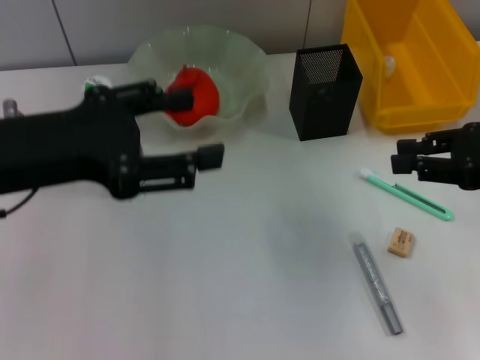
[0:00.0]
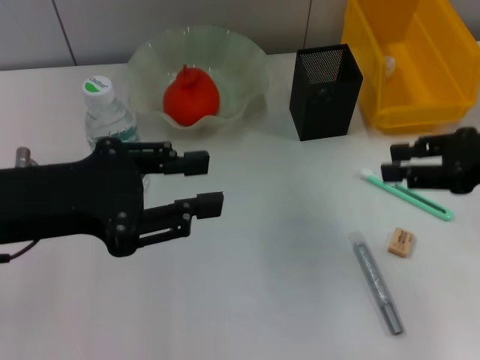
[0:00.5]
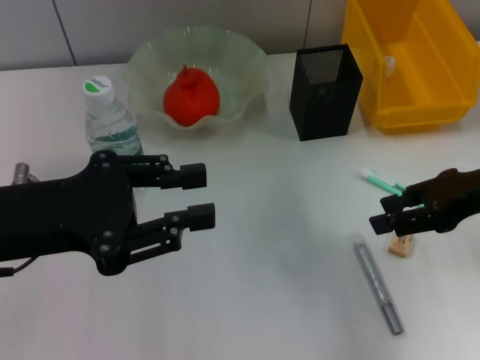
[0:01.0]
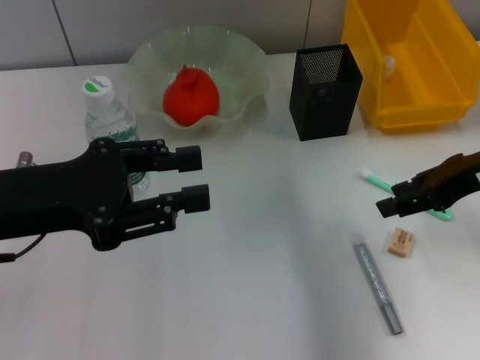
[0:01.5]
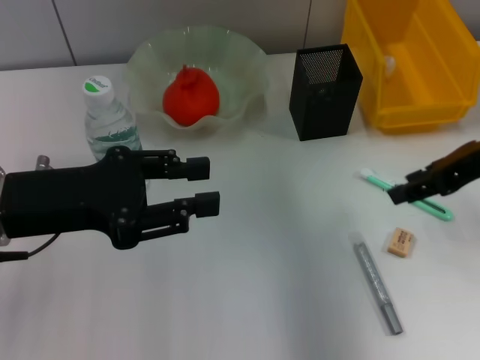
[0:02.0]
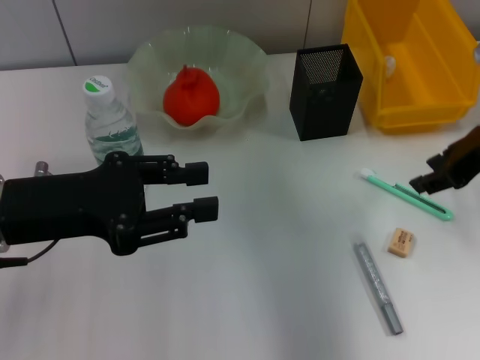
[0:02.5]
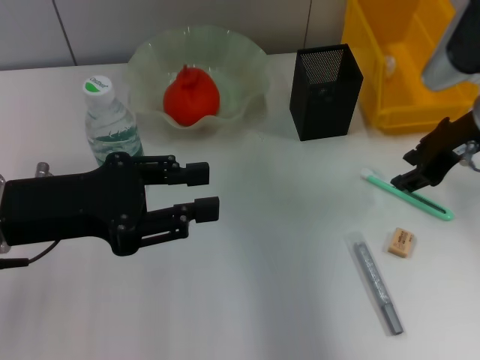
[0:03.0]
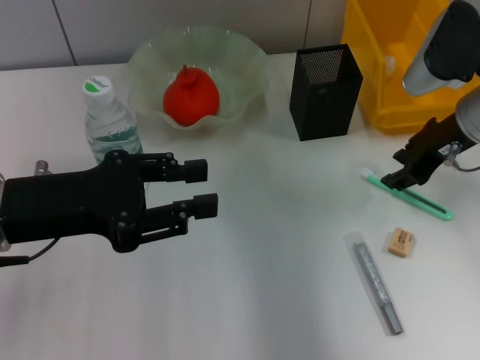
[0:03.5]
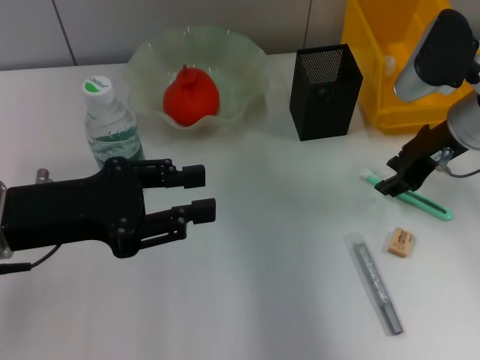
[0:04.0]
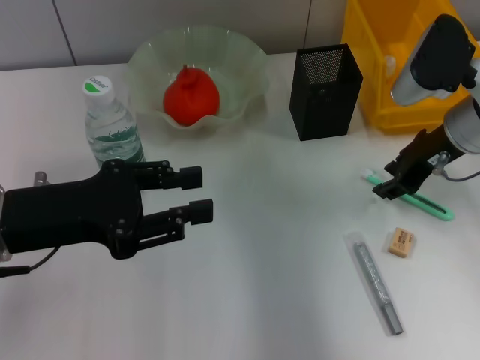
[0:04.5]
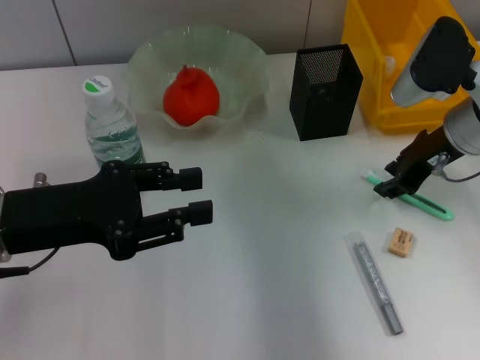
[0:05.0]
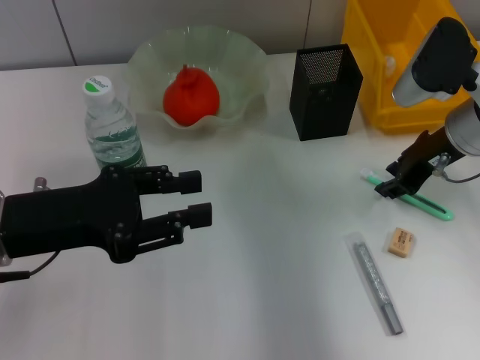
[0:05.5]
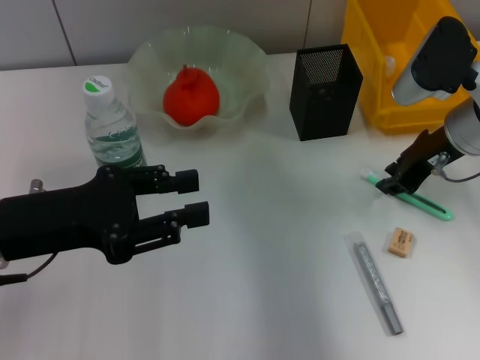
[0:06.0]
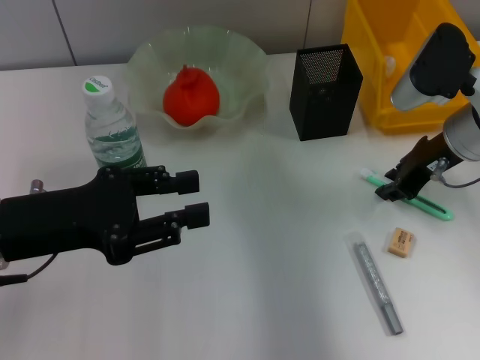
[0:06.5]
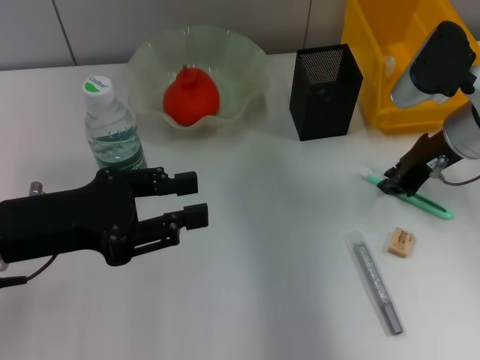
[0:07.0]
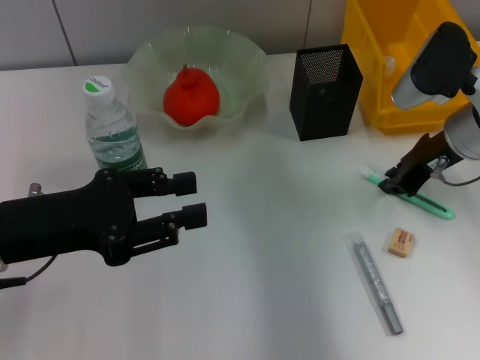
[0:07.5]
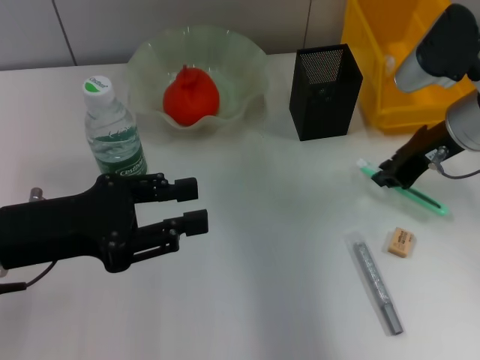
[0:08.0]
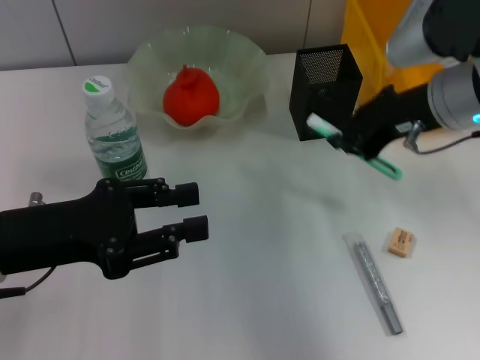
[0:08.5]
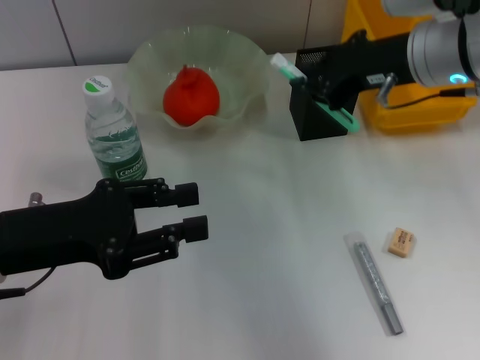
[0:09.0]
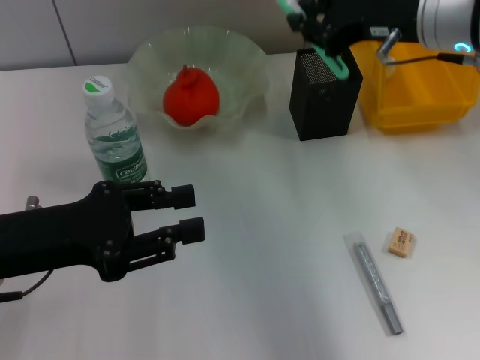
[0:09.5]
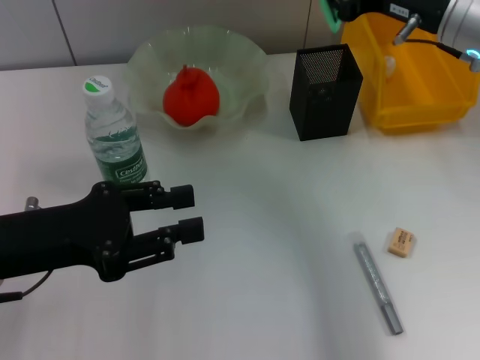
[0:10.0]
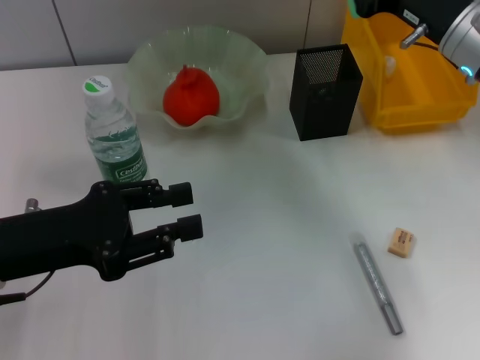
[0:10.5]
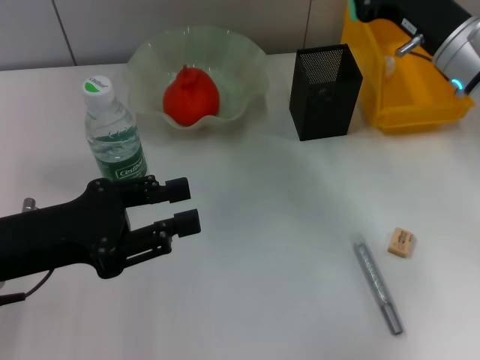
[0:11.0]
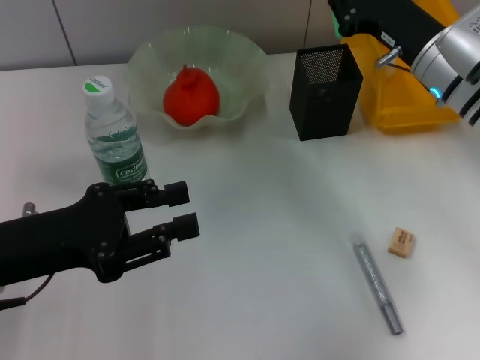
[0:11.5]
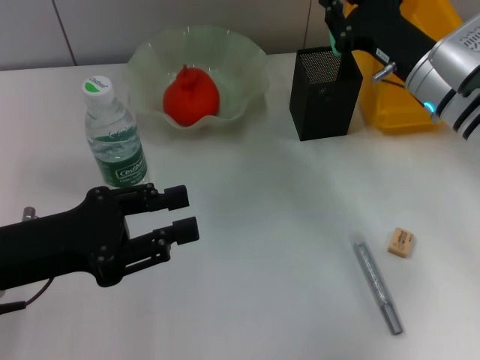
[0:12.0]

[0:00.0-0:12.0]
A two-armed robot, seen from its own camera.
Step, 0:00.0 to 0:07.0: Grab the blue utility knife with the right hand.
0:00.0 to 0:02.0: The left gripper goes roughly 5 cm downward, and closes its fingers, while the right gripper shifts by some 5 cm.
0:02.0 to 0:04.0: The right gripper shifts approximately 10 cm forward and downward.
0:04.0 to 0:06.0: Both grippers stay about where they are.
0:06.0 to 0:08.0: The grippers make only small movements.
0:10.0 to 0:12.0: The right gripper shifts some 10 cm downward.

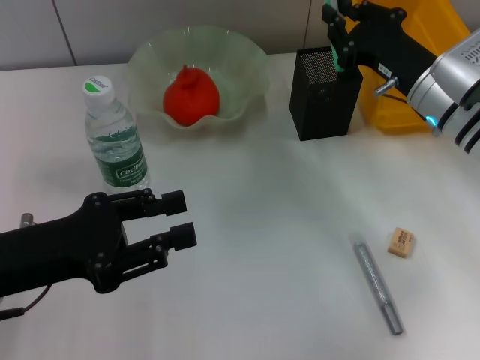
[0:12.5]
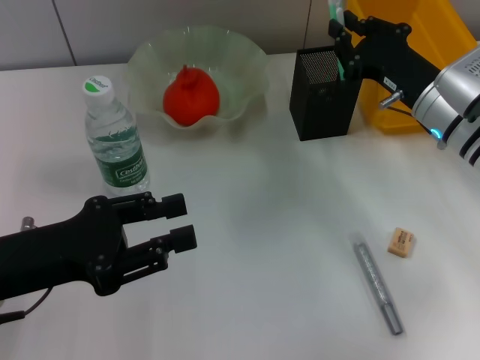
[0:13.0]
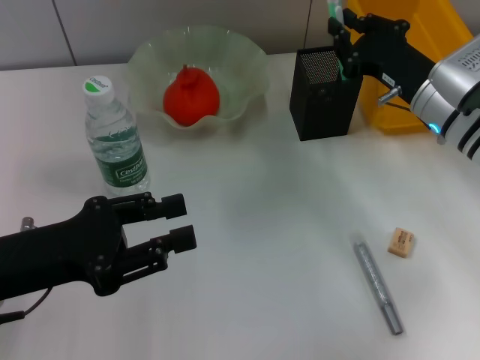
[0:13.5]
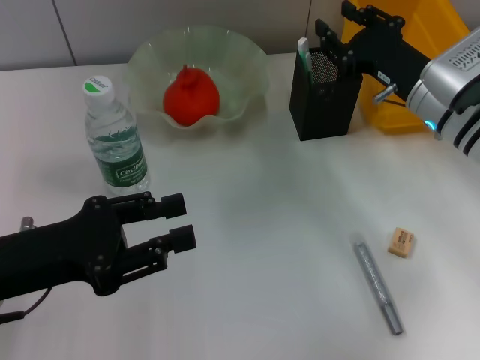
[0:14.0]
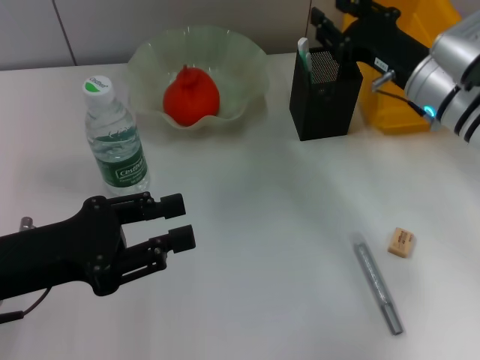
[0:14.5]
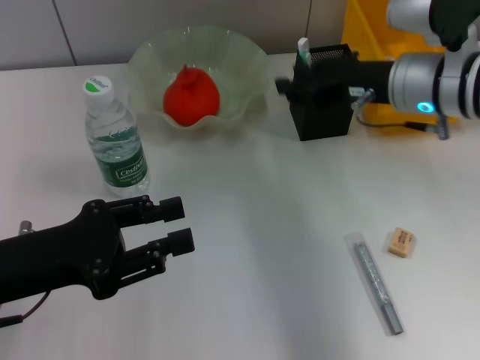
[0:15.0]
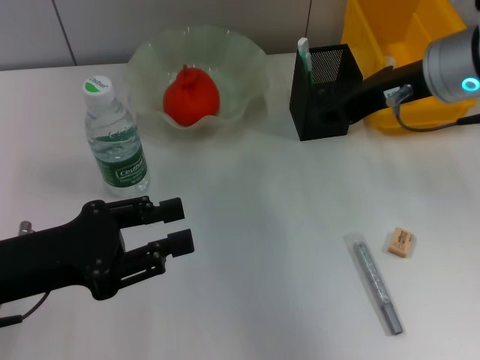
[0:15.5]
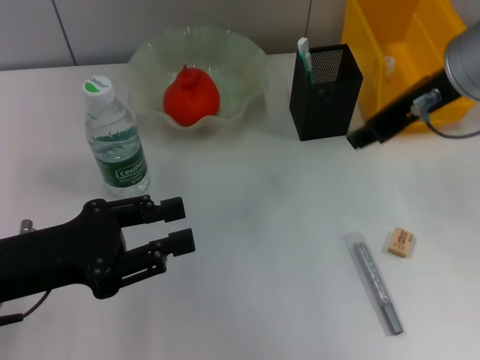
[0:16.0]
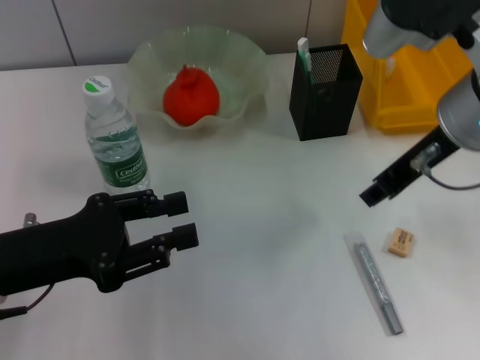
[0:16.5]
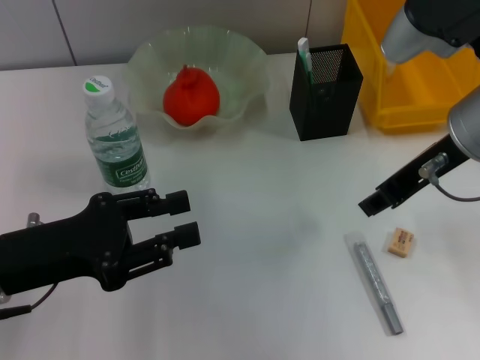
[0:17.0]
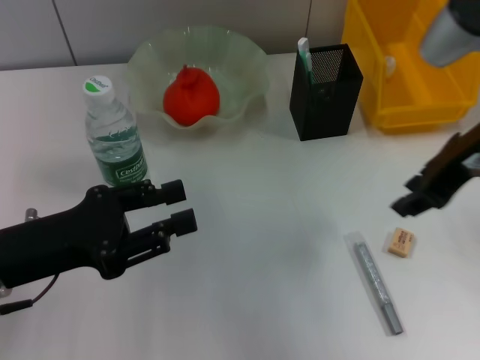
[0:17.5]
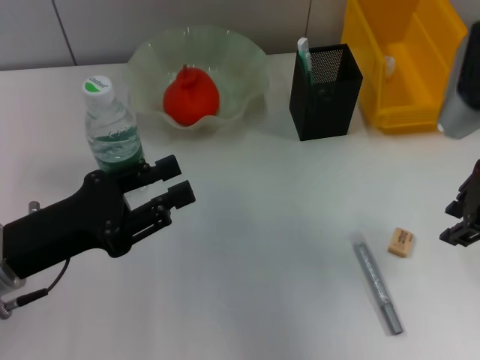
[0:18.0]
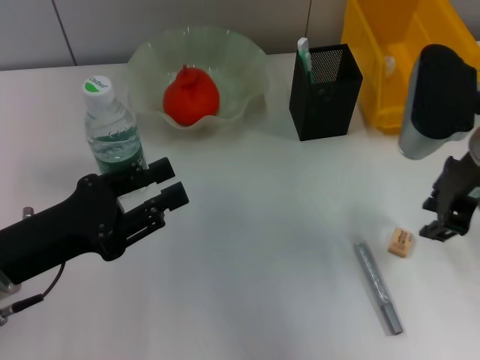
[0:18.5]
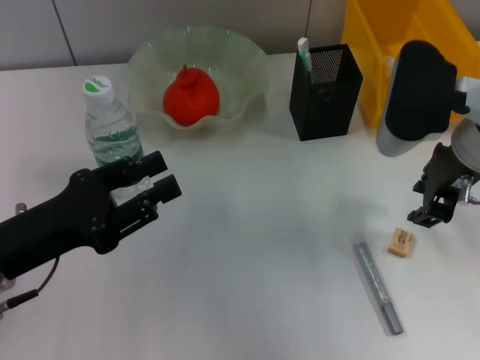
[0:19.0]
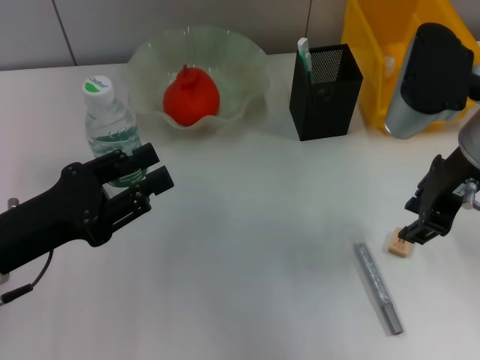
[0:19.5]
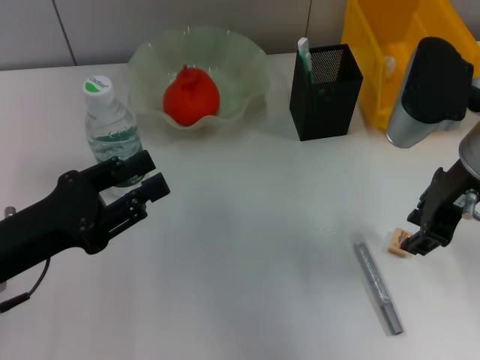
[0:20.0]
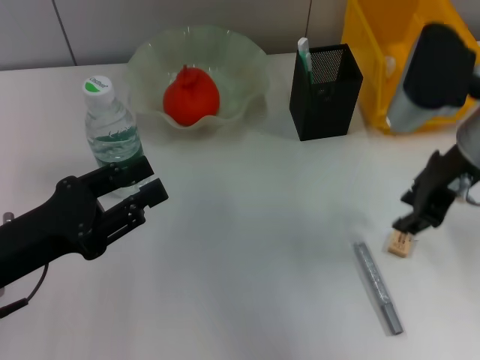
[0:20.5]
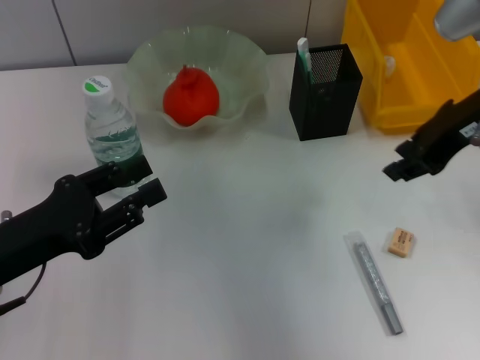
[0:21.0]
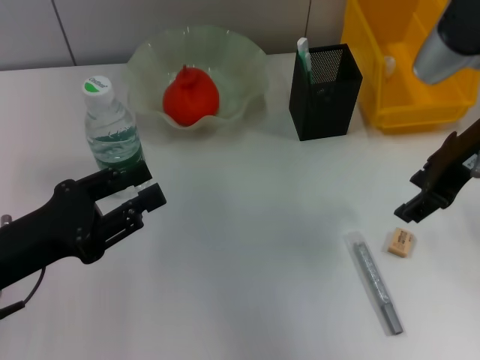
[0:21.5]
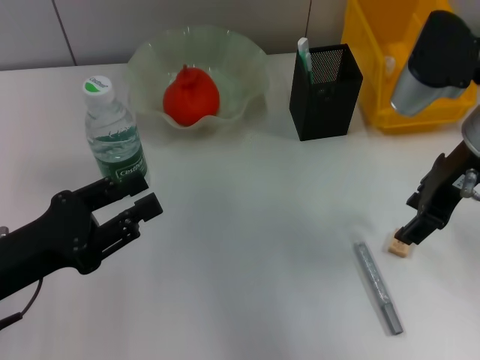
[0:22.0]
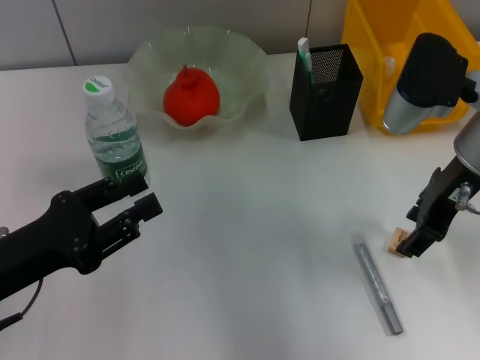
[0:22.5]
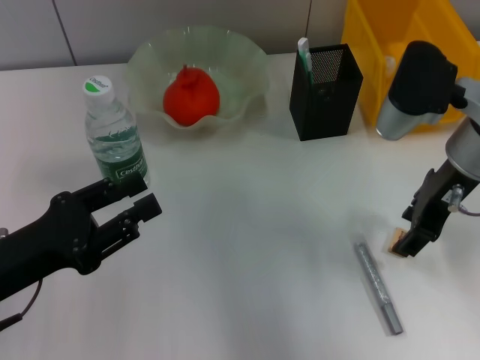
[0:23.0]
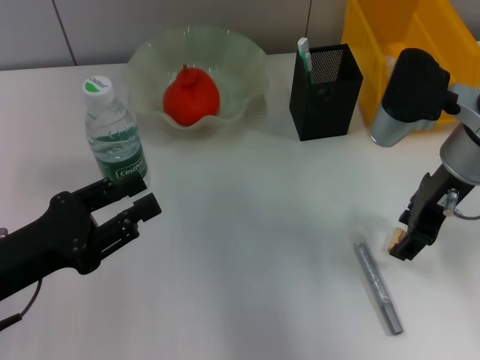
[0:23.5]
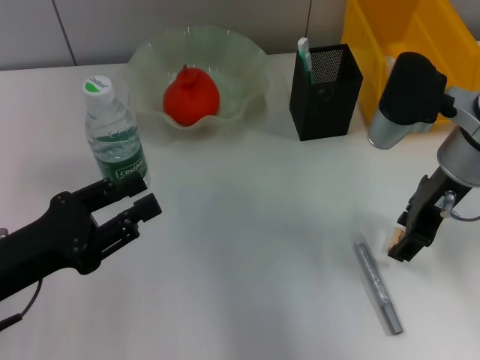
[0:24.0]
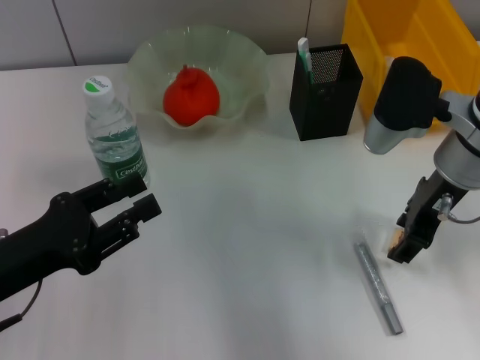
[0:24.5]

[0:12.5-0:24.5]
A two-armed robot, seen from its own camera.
0:12.5 to 0:14.5: The right gripper opens up.
0:14.5 to 0:16.5: The right gripper heads upward and backward, covering some 15 cm.
0:16.5 to 0:18.5: The right gripper moves some 5 cm.
0:18.5 to 0:20.5: The grippers move only a little.
0:20.5 to 0:24.5: There are only small adjustments of the grippers.

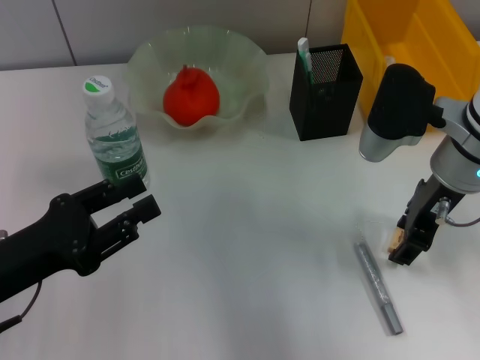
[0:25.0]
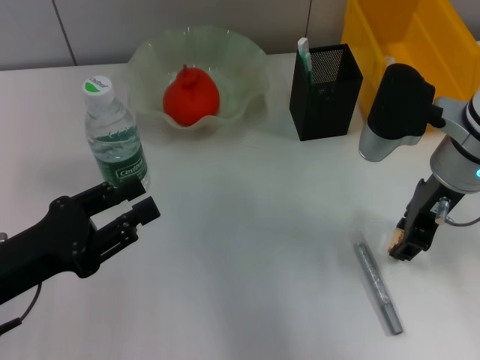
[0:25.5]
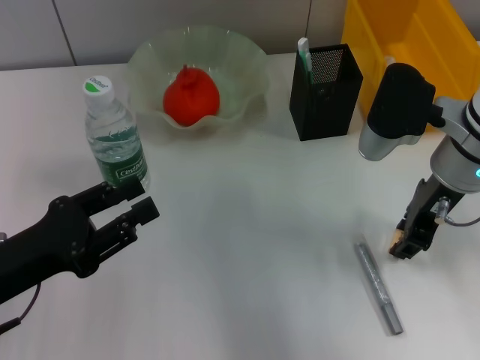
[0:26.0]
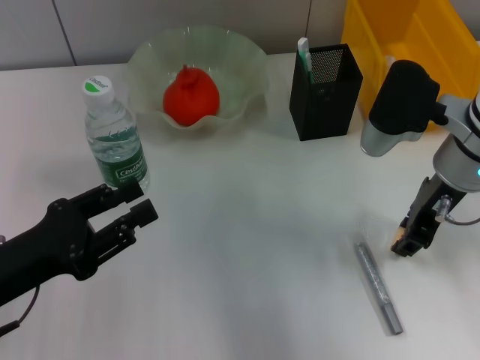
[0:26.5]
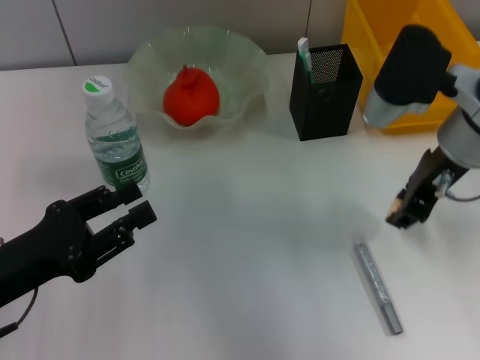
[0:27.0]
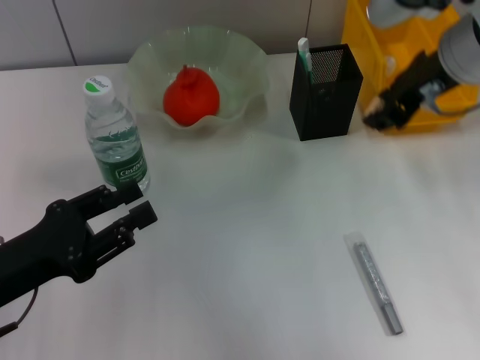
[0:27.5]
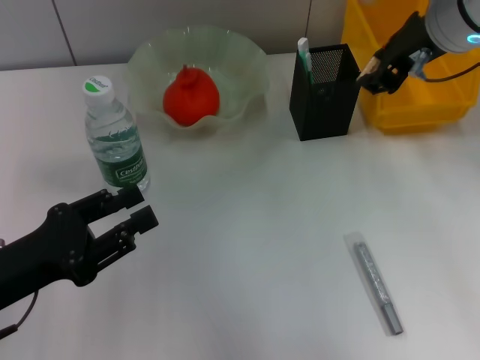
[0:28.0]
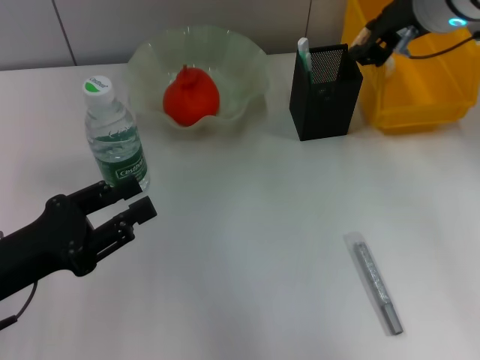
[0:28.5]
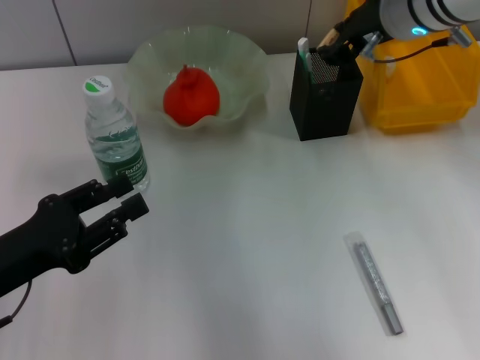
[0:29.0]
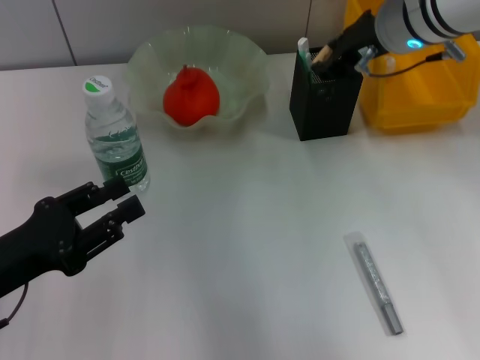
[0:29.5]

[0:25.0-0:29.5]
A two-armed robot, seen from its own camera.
0:25.0 to 0:27.0: The right gripper closes up.
0:27.0 to 0:29.5: The right gripper shifts some 10 cm forward.
